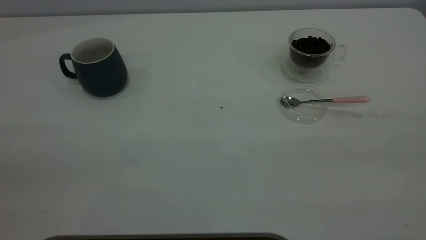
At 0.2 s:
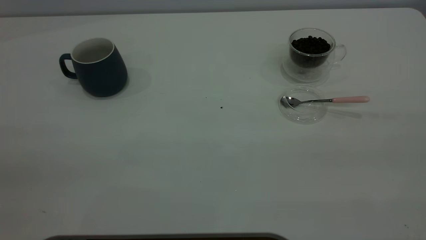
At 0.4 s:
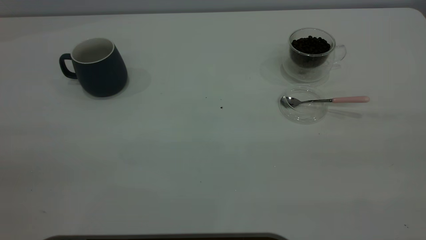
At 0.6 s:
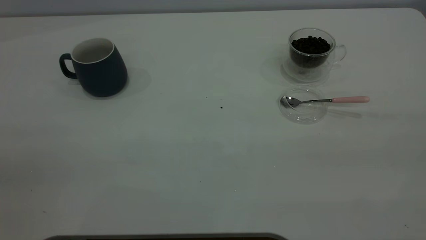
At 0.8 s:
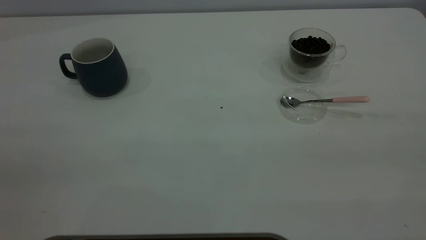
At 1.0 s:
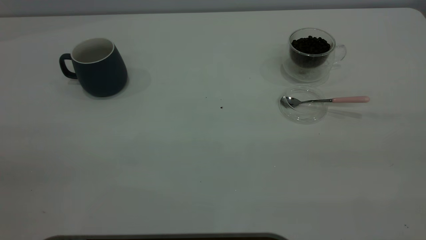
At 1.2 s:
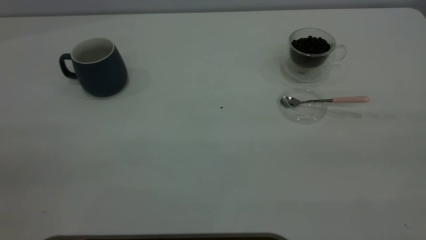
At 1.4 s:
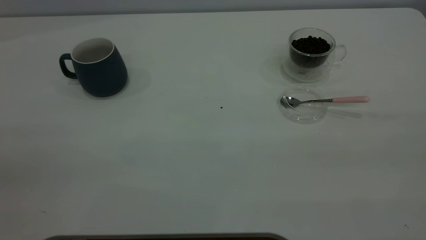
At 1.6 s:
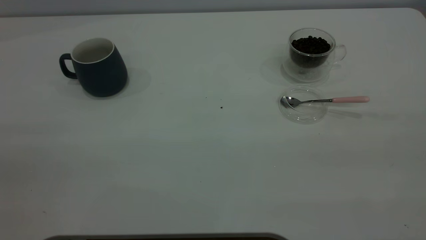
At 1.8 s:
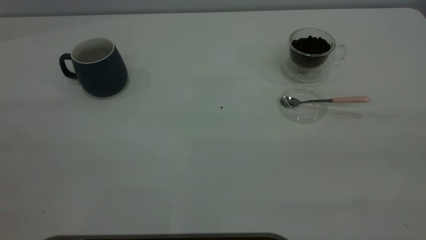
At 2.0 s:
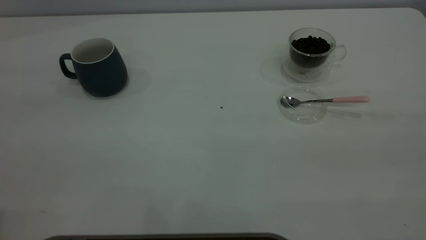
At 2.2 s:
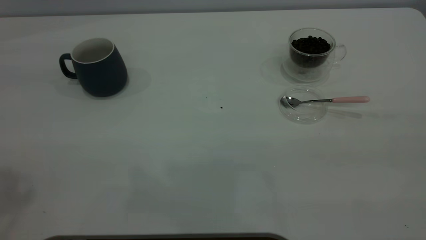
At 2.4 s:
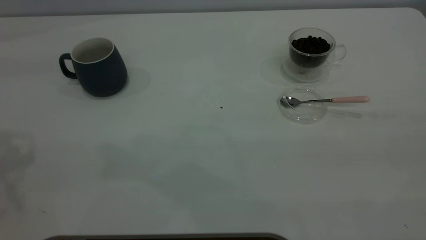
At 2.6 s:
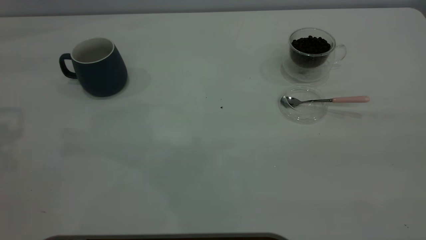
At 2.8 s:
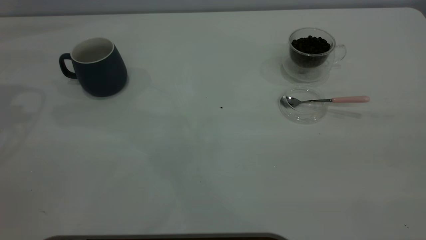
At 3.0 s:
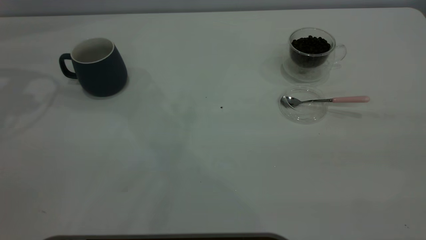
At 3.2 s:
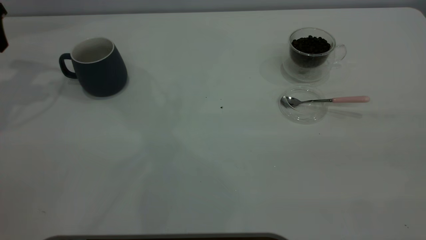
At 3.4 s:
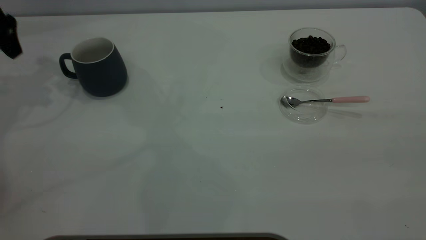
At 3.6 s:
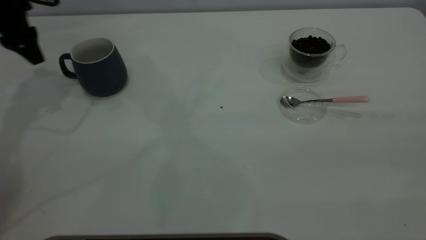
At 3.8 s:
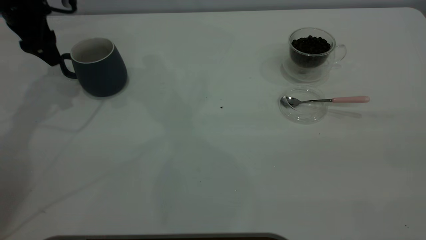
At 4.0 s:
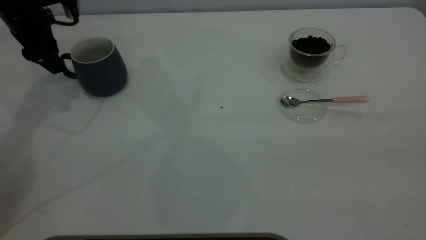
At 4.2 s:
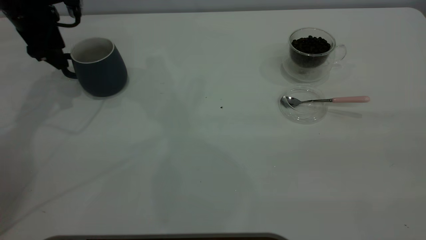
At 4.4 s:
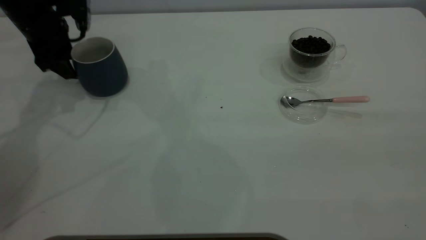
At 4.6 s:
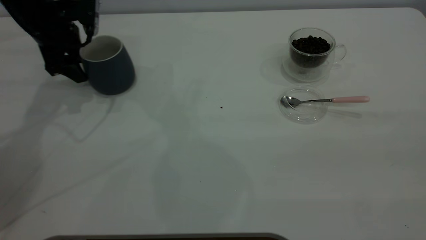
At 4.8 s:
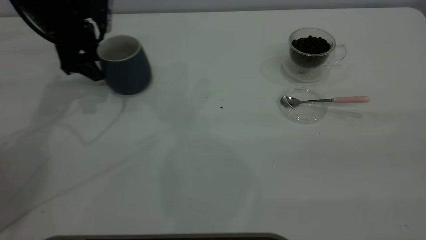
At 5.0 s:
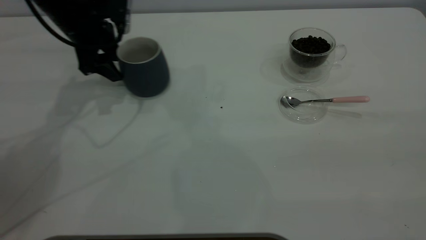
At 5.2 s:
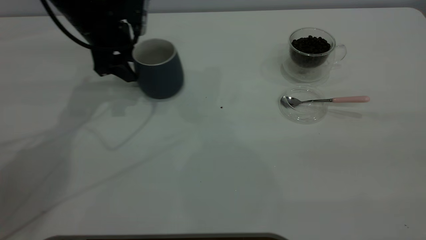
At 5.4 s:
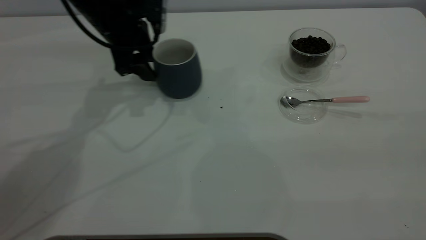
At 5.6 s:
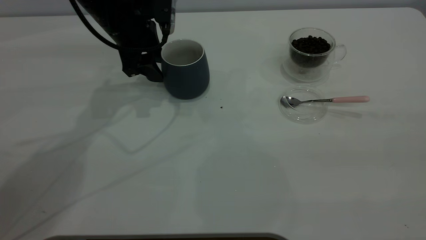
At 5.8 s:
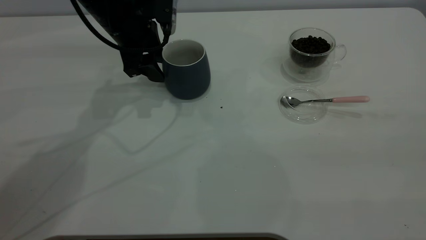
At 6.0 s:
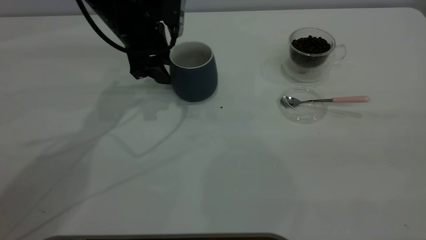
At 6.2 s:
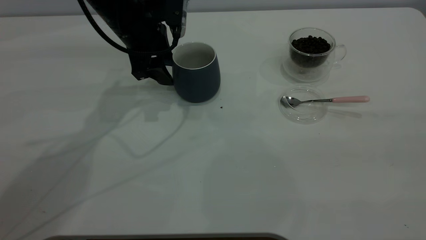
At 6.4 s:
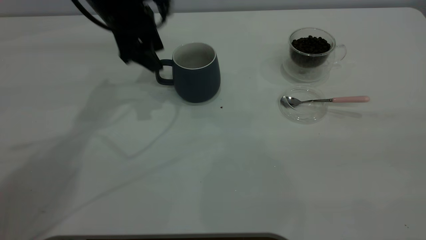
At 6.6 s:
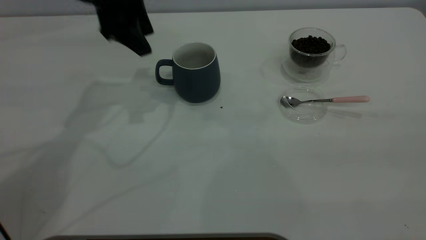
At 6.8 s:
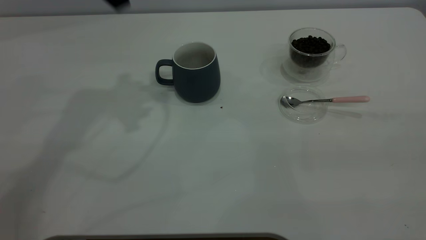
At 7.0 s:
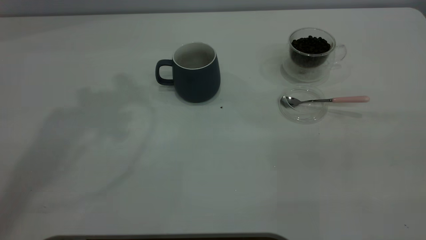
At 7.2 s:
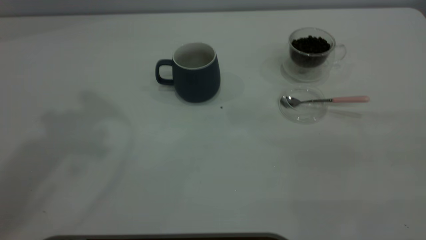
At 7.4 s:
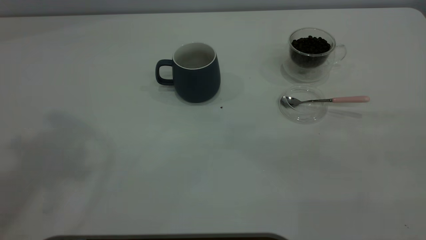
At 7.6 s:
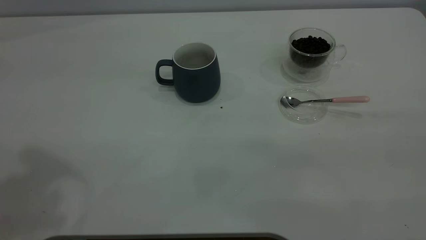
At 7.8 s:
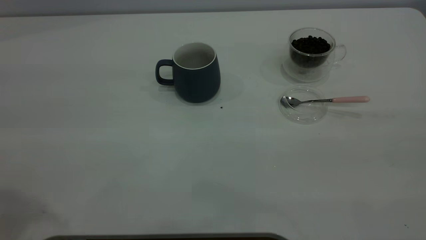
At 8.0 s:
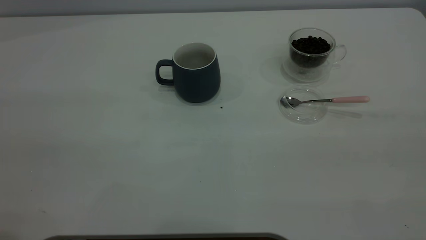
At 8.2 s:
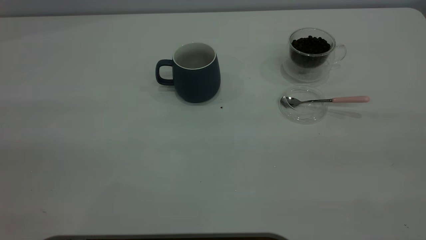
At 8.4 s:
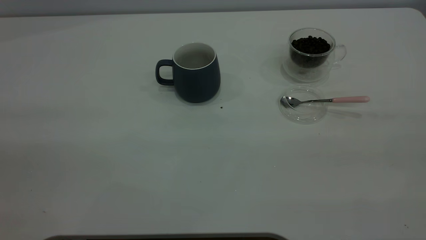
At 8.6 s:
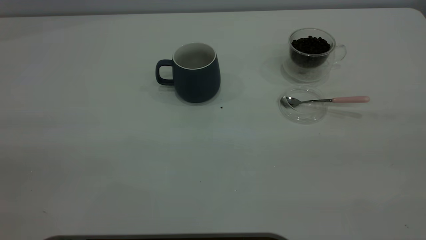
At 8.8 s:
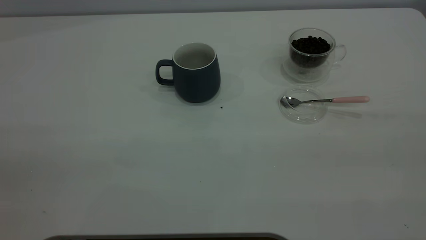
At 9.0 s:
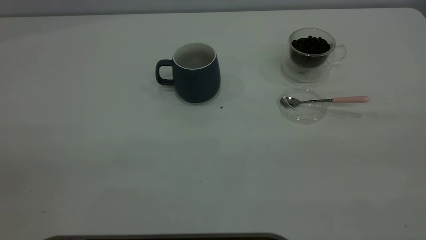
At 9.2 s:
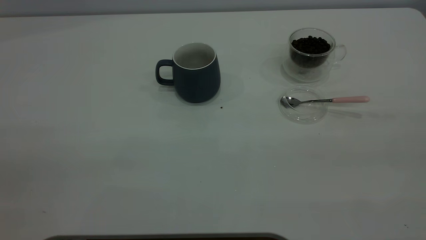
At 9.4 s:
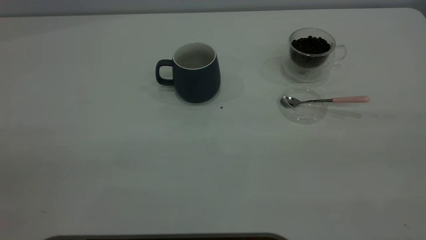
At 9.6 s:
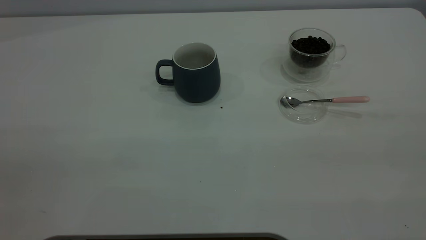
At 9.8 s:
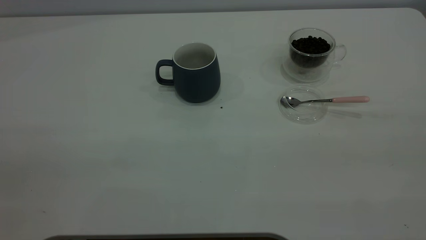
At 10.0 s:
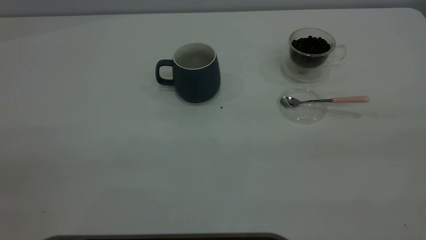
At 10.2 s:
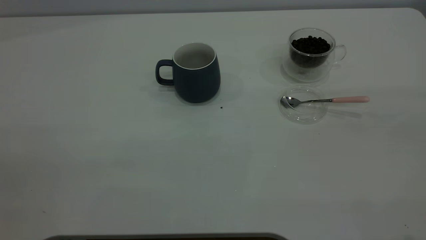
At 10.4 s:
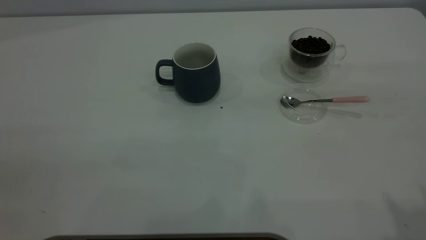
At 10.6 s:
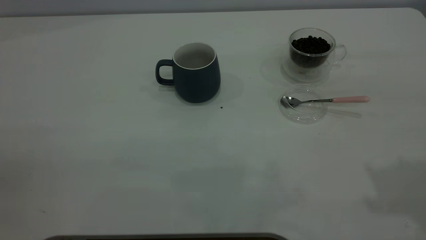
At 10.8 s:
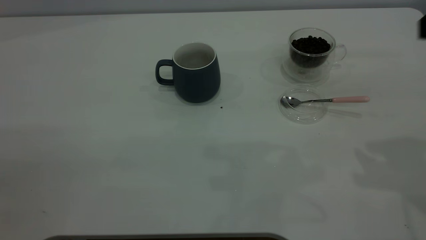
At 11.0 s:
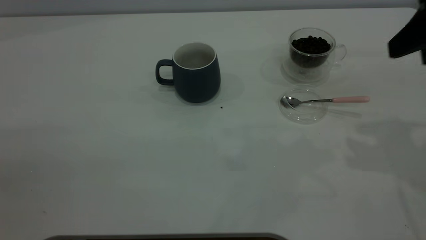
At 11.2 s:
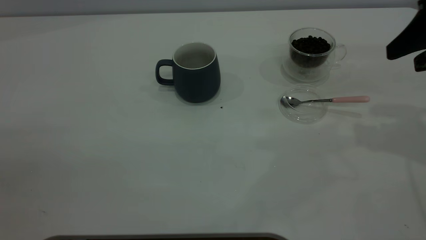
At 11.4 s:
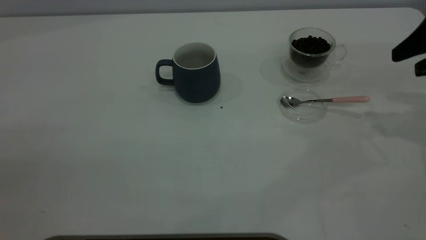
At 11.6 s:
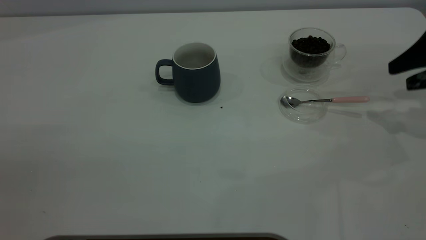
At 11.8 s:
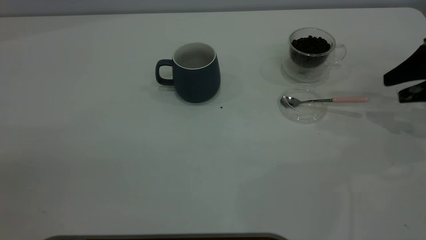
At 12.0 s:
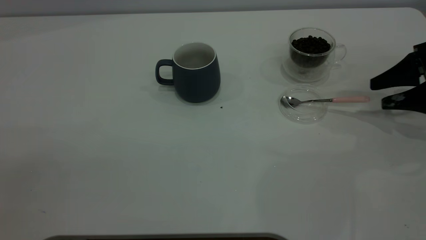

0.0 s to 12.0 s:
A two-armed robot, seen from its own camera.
Task of the whole recording: the left gripper place the grey cup in the center of the table, the right gripper take the pink spoon from the cup lid and scoop out the coffee beans from the coffee cup and put them into the grey cup, the right gripper put the spoon back into the cup lid.
Step, 0.0 to 6.2 s: Move the cup to the center of view.
0.0 to 1.6 s: The two grippers keep their place.
3.0 to 4.4 s: The left gripper is displaced downward and to the right by approximately 15 cm.
4.4 to 6.0 s: The left gripper is displaced to the right by about 15 cm.
6.0 to 7.6 s: The left gripper is displaced upward and backward by roughly 40 cm.
10.4 to 12.0 s: The right gripper is displaced downward and forward by some 35 cm.

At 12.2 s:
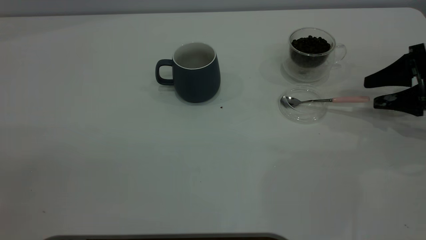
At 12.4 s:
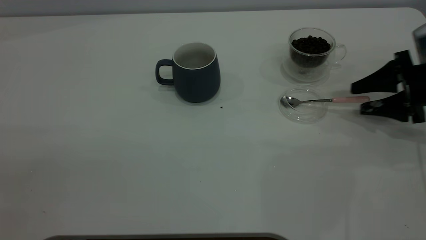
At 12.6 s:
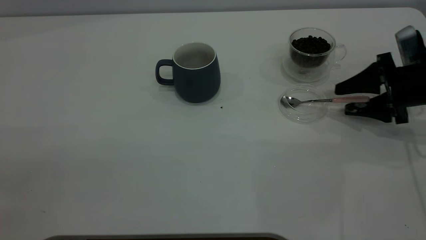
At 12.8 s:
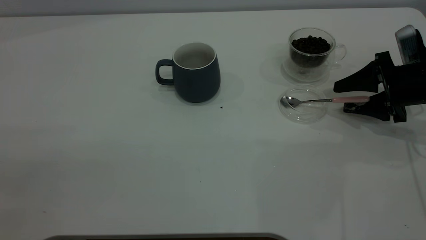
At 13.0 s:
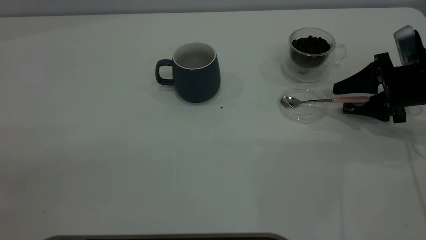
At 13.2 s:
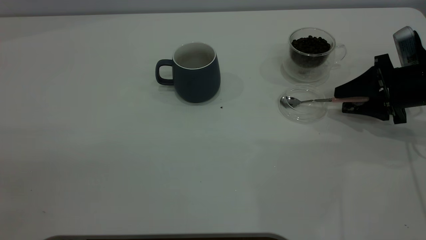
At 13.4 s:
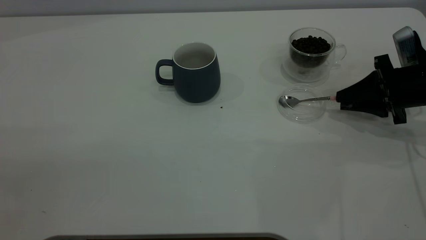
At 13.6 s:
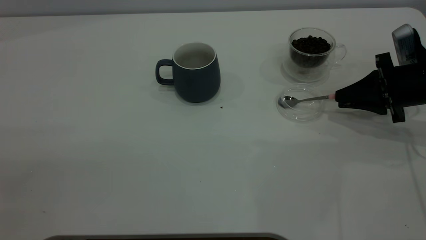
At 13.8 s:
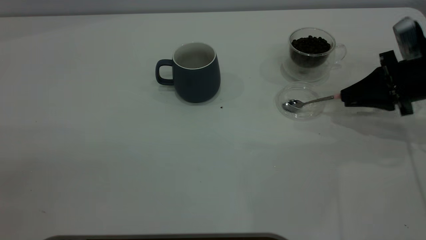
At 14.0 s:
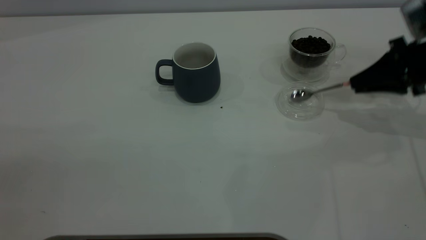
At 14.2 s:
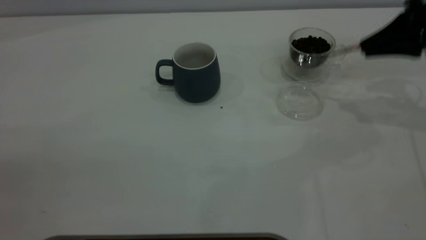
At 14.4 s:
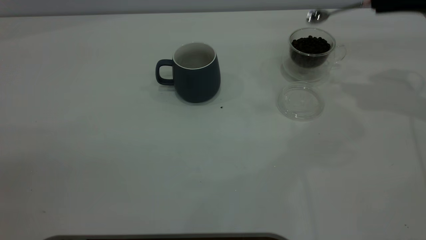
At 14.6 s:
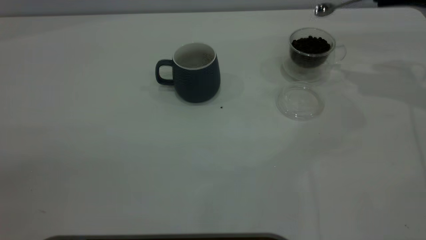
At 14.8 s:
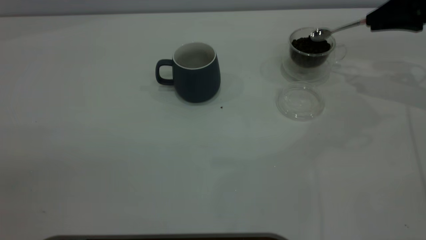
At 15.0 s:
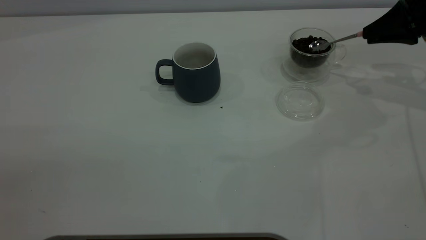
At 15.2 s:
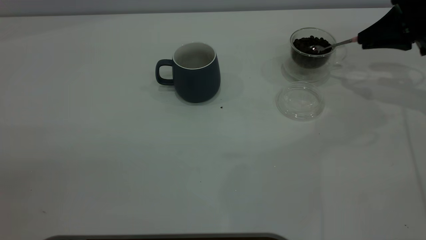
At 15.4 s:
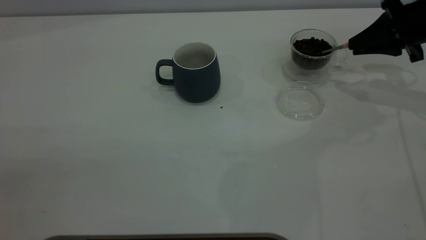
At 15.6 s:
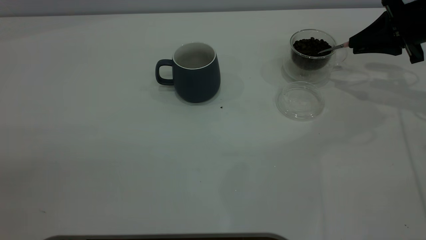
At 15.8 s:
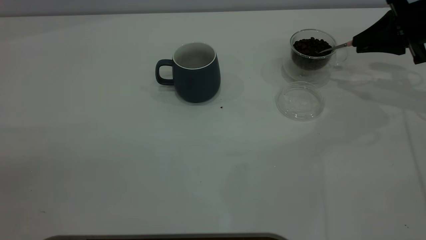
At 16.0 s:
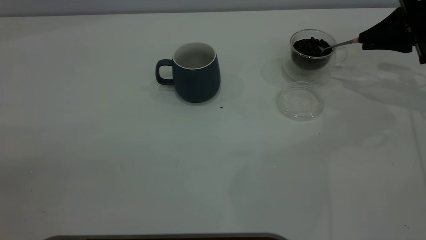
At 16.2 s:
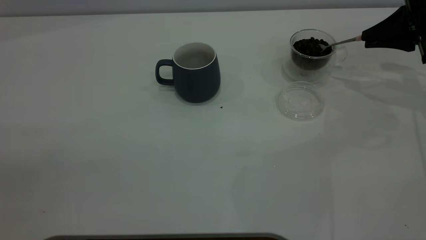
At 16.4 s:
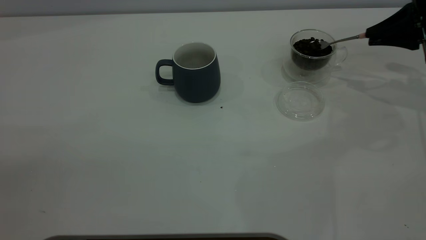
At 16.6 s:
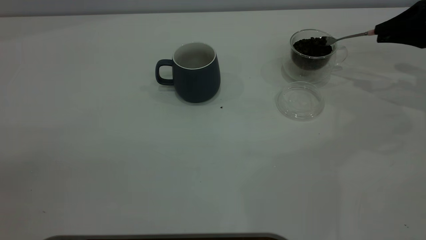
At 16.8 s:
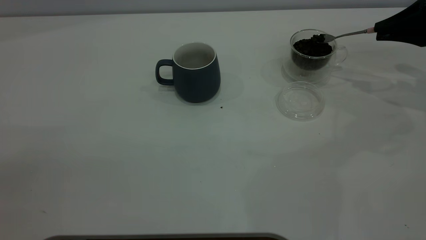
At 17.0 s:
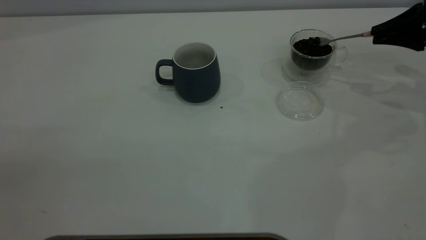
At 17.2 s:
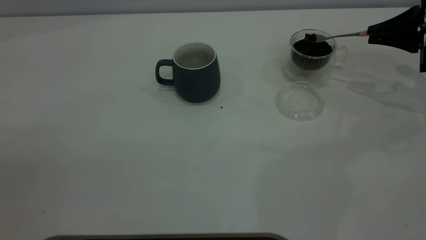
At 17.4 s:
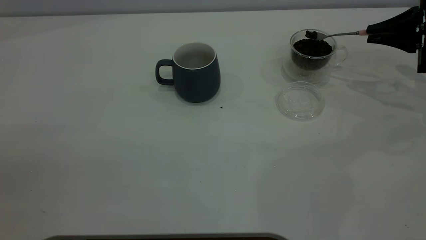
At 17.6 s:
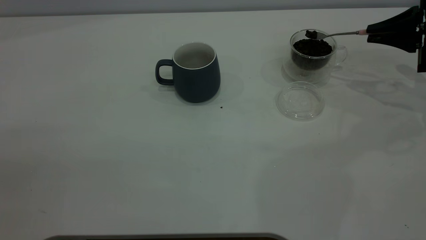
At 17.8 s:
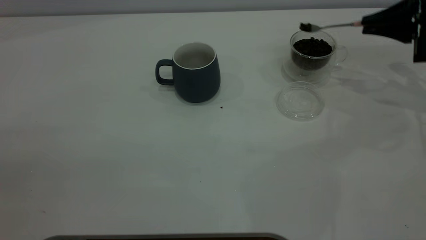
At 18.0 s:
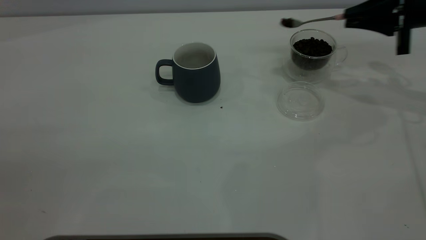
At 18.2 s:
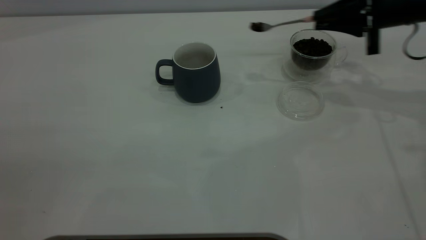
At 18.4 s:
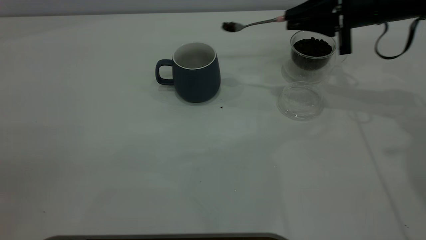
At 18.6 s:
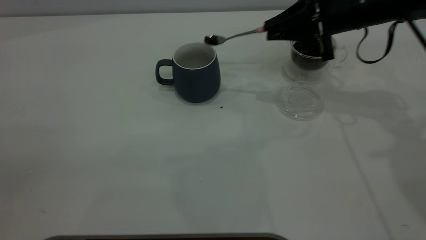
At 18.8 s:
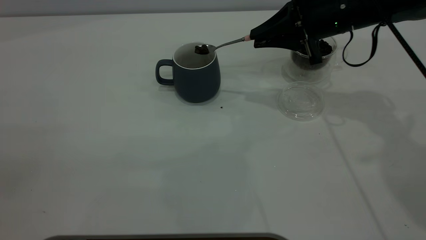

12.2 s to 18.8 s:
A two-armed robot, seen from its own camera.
Task of the whole recording: the left gripper place the grey cup in the center of the table, the right gripper take the pink spoon from the cup lid and scoop out the coffee beans from the coffee cup and put them into the grey cup, the right gripper put the spoon back into the cup lid.
12.2 to 13.8 s: The right gripper closes its fingers.
13.8 to 15.4 s: The right gripper moves forward and upward, approximately 10 cm.
17.2 to 18.8 s: The right gripper shifts approximately 20 cm to the left.
